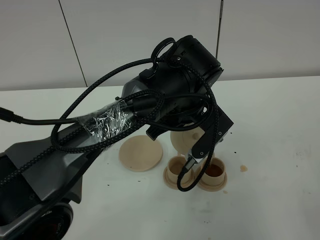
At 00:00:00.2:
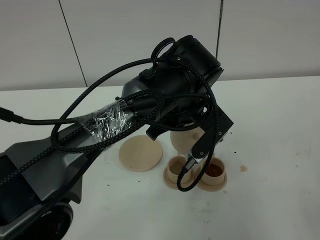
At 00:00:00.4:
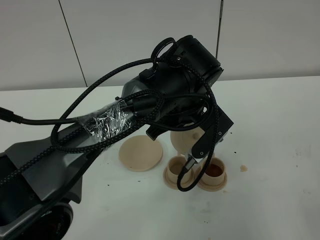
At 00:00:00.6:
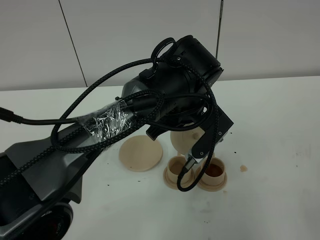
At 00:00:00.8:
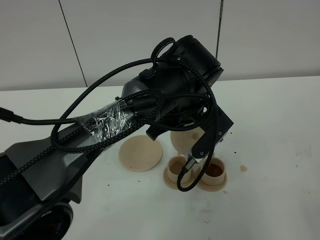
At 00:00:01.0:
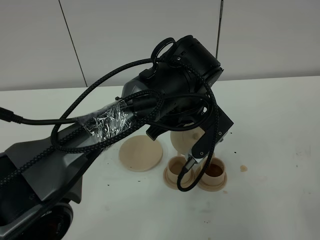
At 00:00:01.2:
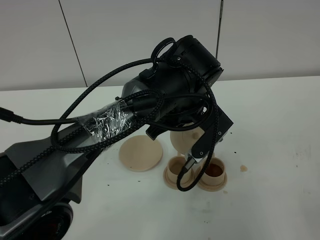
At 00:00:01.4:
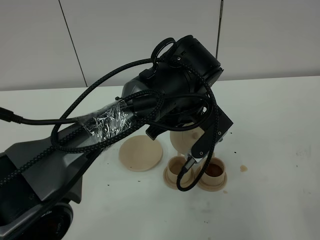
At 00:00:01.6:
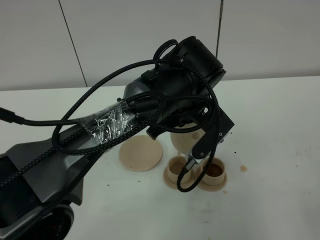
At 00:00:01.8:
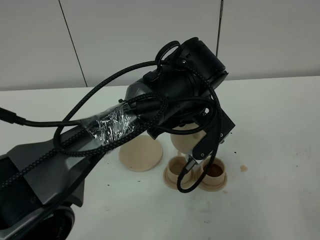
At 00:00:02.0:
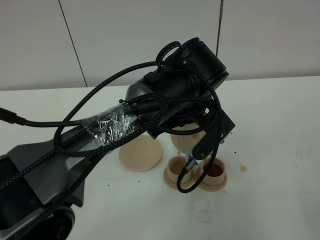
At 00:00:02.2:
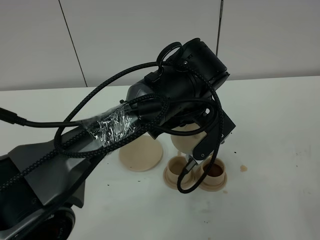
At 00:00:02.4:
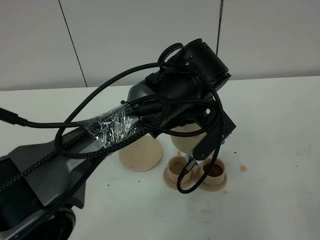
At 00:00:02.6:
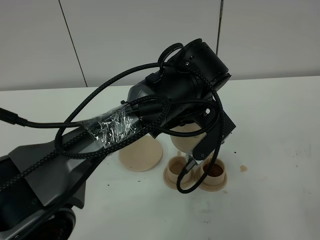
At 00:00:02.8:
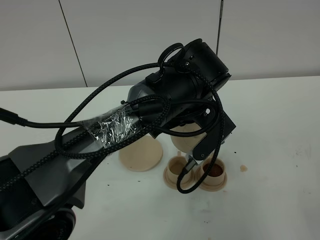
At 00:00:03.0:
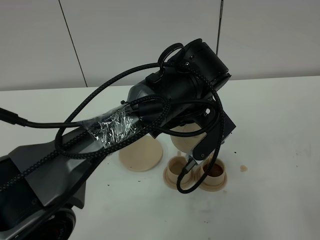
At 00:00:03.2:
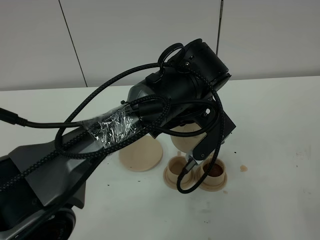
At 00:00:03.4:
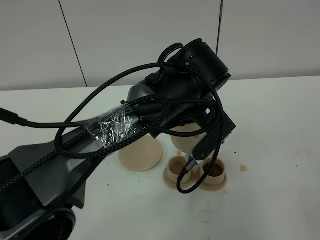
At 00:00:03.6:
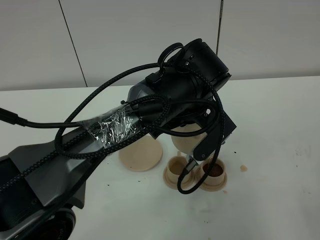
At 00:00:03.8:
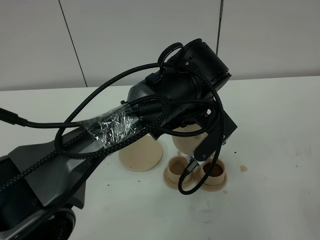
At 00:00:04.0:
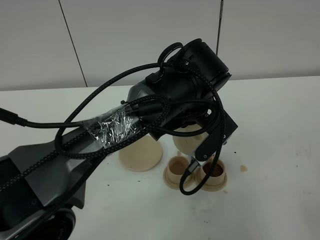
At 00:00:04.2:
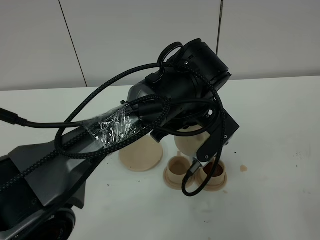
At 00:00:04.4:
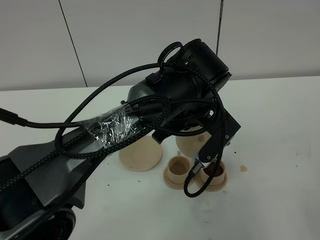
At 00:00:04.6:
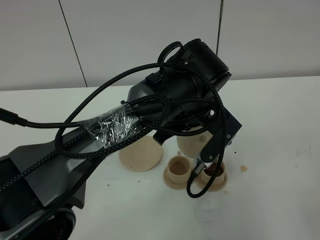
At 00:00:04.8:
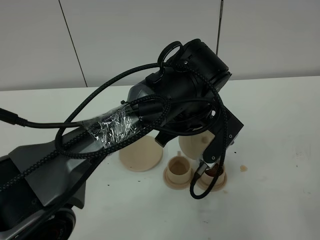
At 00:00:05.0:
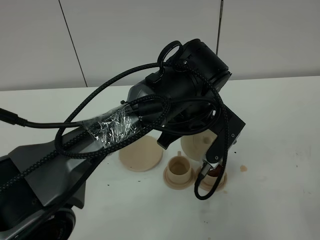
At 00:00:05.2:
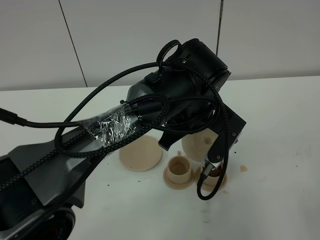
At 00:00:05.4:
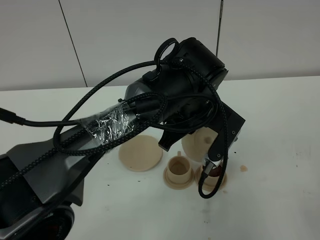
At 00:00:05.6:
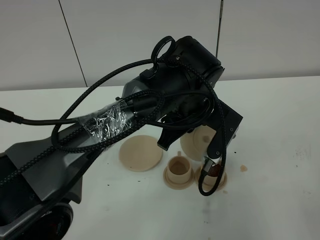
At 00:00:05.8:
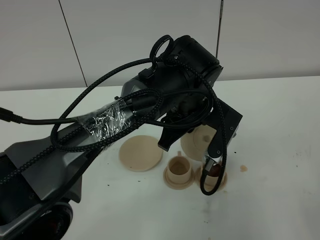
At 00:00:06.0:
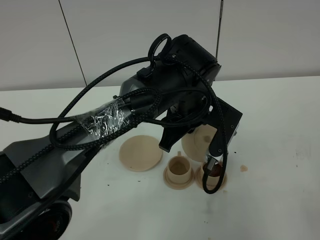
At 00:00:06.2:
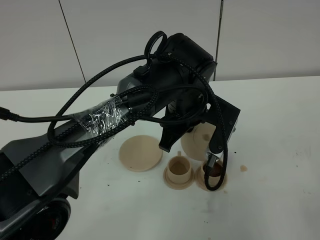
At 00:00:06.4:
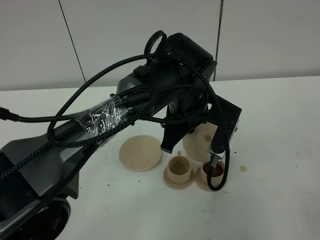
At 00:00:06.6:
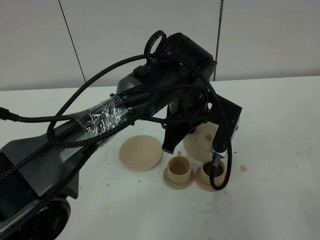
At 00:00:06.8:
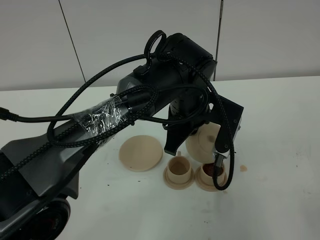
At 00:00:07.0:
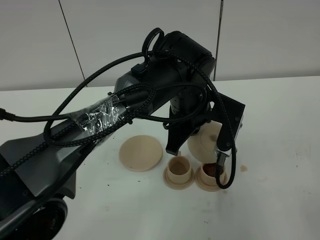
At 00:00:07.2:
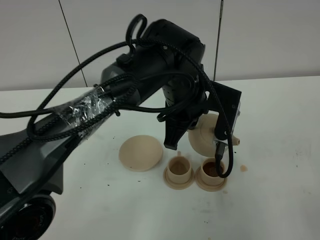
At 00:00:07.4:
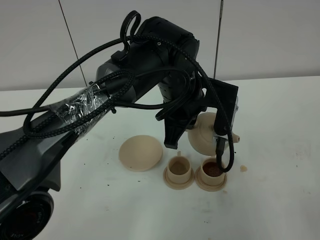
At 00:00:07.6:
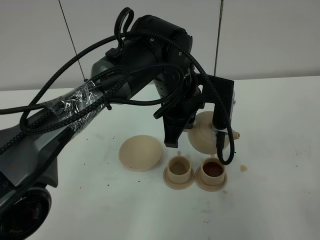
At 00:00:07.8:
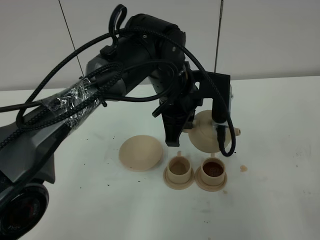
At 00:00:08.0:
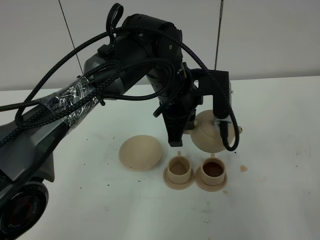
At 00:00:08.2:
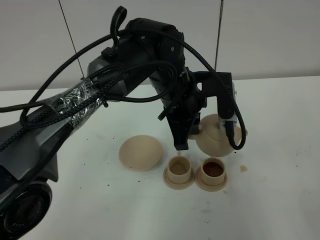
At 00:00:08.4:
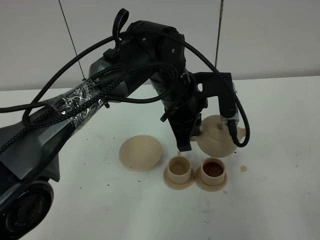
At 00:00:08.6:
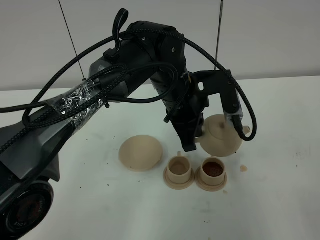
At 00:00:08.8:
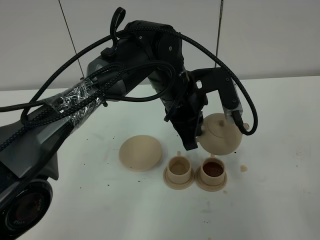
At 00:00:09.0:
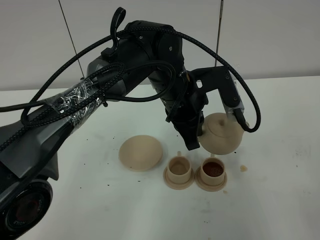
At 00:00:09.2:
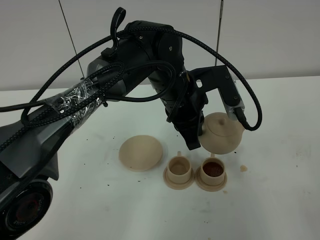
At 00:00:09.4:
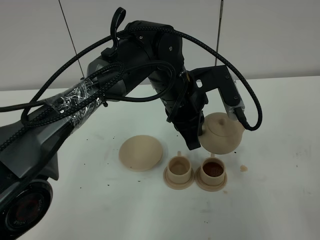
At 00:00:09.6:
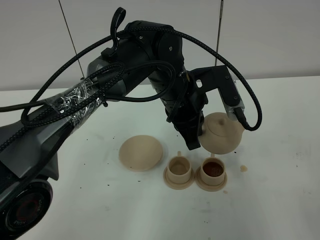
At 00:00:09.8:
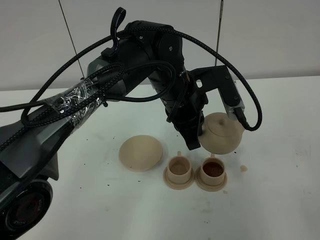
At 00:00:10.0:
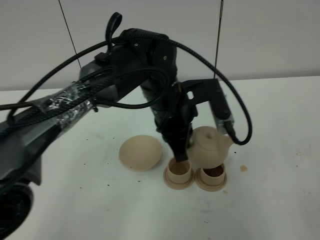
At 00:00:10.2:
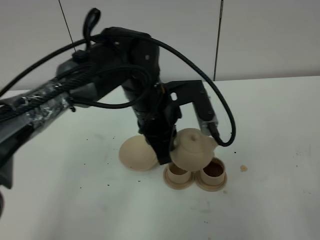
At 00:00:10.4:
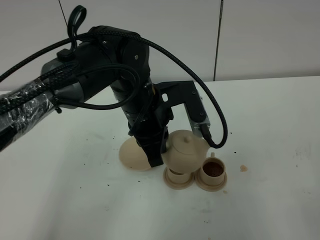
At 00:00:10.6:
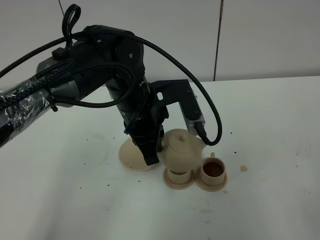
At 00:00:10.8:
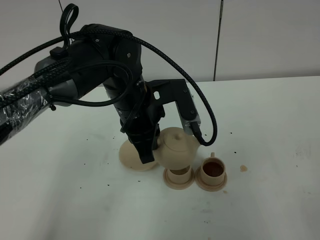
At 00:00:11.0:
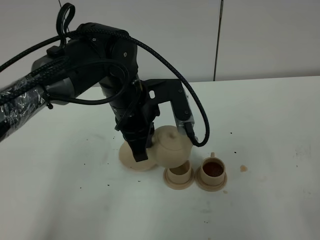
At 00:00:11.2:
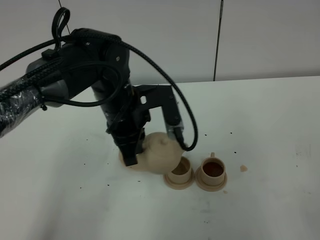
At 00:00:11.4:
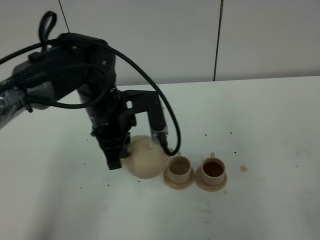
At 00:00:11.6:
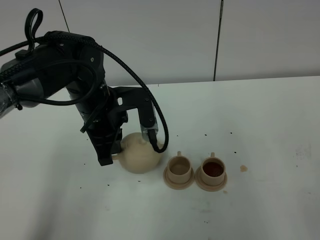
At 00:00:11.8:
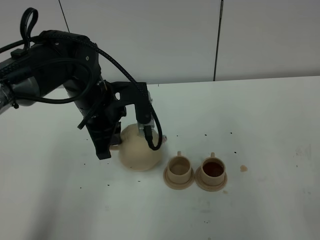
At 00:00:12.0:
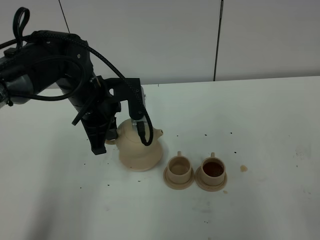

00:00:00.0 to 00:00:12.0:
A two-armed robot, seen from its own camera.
Task of the whole recording: grasp the brown teapot and pour the tea into the two brown teacups one by one, put the brown teapot back in its original place.
00:00:00.0 to 00:00:04.4: Both grippers stay put.
00:00:04.4 to 00:00:06.0: The grippers make only small movements.
00:00:09.0 to 00:00:10.4: The left gripper travels to the left by some 5 cm.
00:00:10.4 to 00:00:12.0: The left gripper shifts some 10 cm to the left.

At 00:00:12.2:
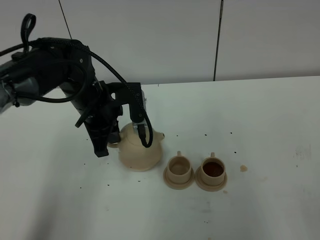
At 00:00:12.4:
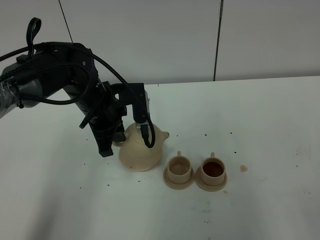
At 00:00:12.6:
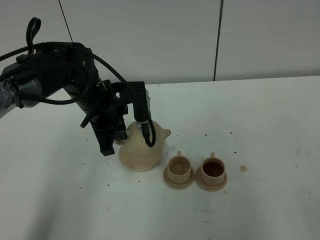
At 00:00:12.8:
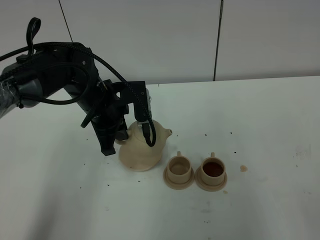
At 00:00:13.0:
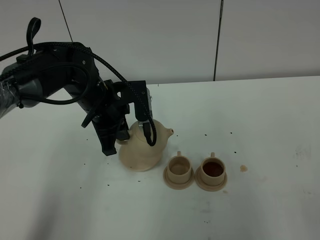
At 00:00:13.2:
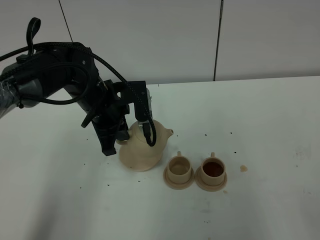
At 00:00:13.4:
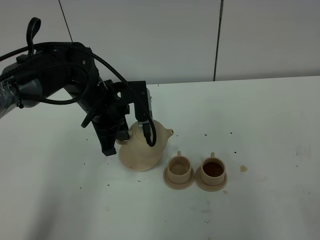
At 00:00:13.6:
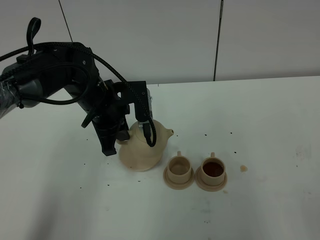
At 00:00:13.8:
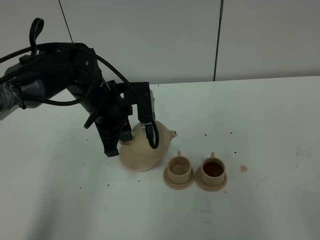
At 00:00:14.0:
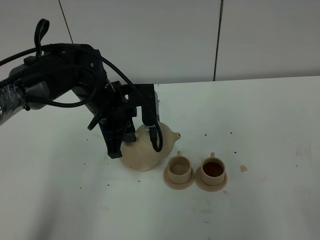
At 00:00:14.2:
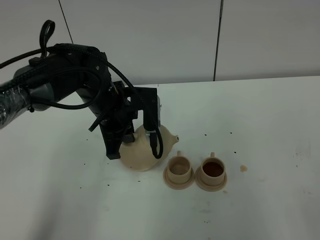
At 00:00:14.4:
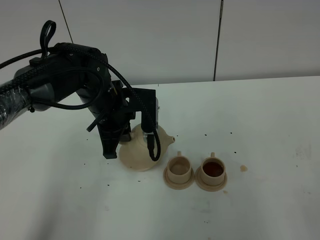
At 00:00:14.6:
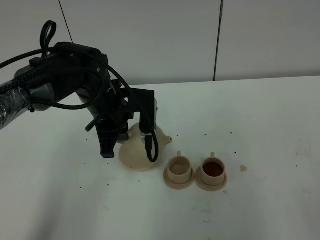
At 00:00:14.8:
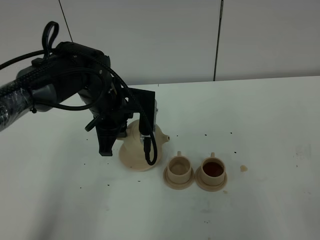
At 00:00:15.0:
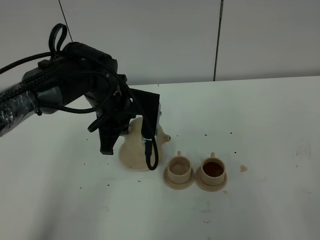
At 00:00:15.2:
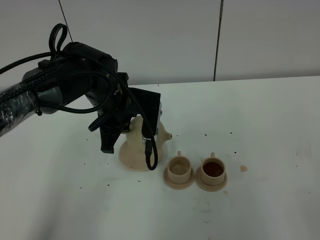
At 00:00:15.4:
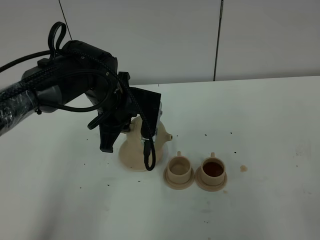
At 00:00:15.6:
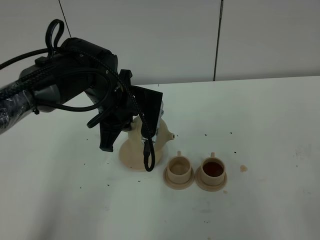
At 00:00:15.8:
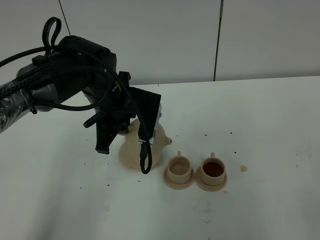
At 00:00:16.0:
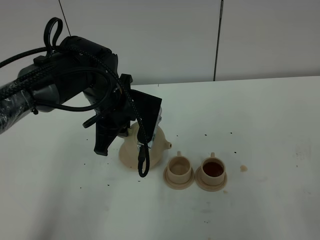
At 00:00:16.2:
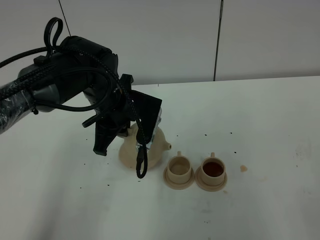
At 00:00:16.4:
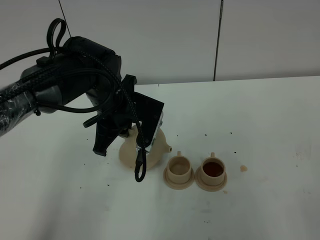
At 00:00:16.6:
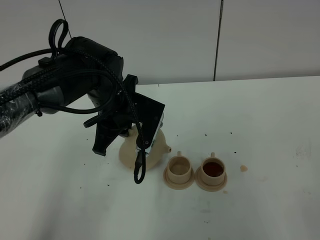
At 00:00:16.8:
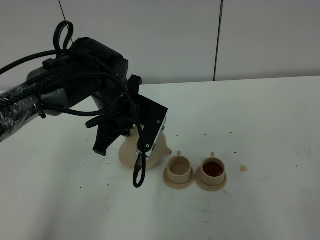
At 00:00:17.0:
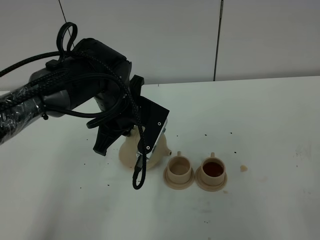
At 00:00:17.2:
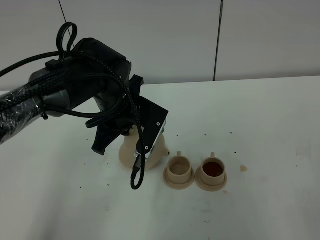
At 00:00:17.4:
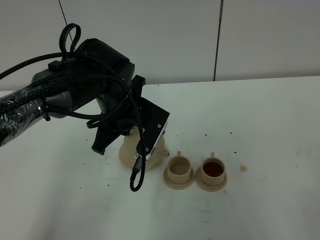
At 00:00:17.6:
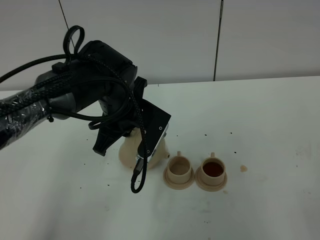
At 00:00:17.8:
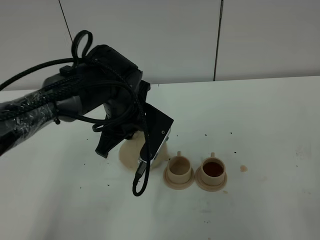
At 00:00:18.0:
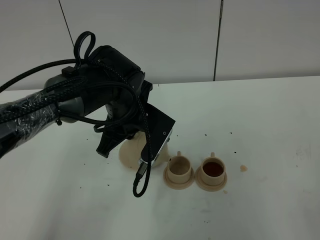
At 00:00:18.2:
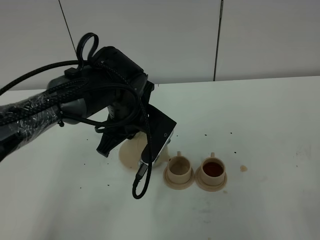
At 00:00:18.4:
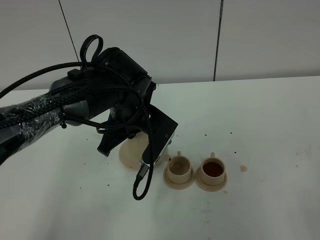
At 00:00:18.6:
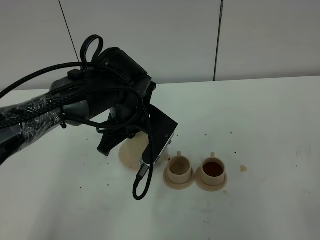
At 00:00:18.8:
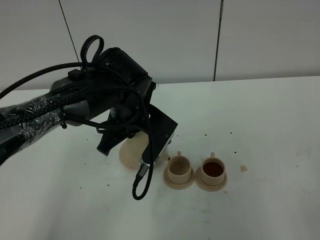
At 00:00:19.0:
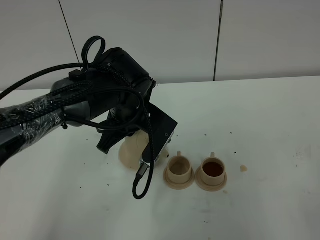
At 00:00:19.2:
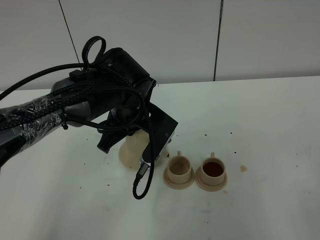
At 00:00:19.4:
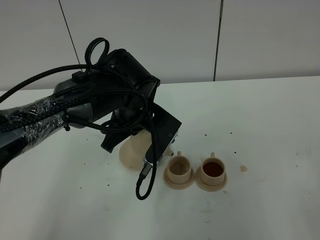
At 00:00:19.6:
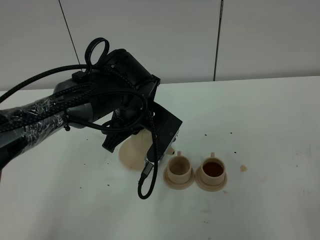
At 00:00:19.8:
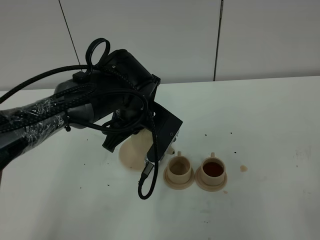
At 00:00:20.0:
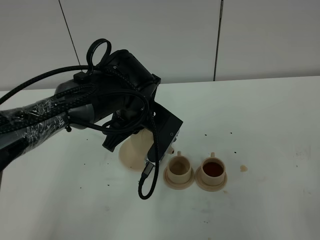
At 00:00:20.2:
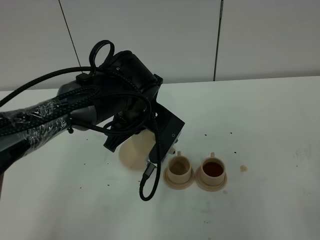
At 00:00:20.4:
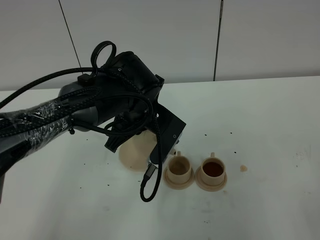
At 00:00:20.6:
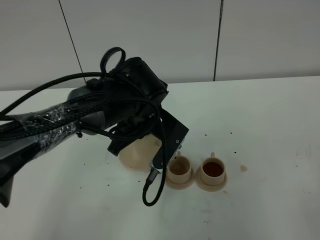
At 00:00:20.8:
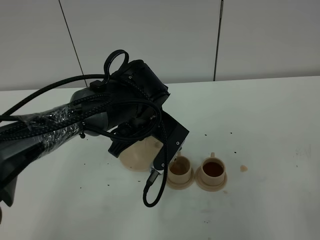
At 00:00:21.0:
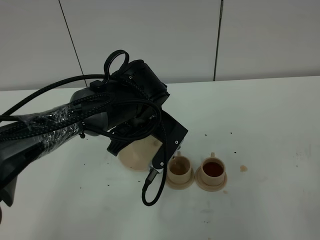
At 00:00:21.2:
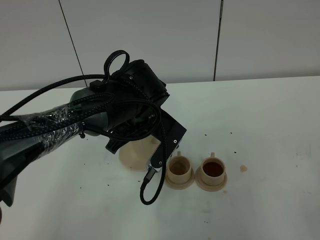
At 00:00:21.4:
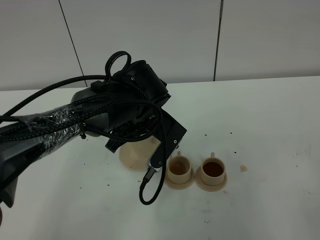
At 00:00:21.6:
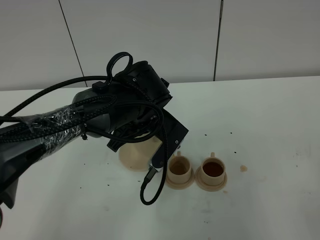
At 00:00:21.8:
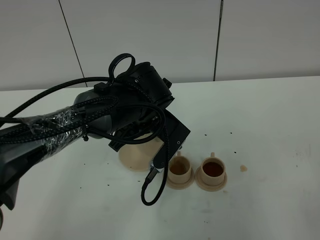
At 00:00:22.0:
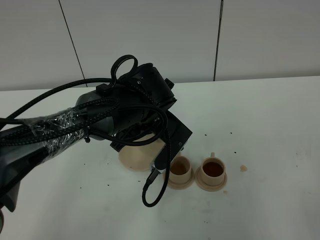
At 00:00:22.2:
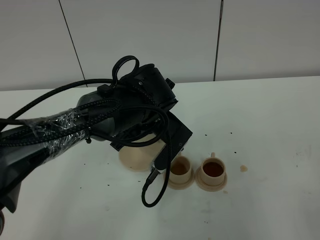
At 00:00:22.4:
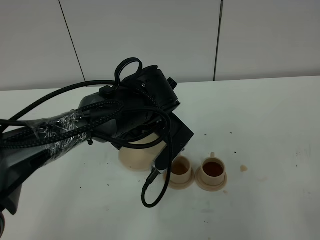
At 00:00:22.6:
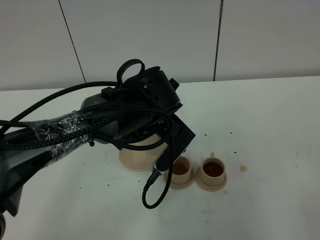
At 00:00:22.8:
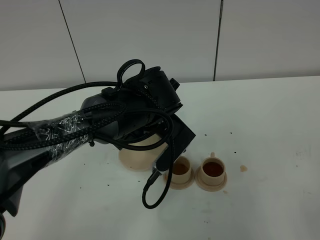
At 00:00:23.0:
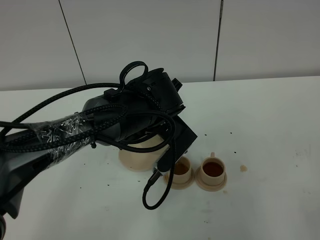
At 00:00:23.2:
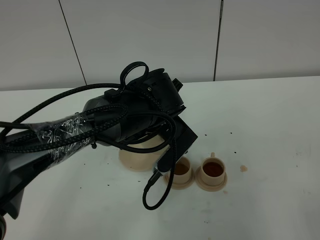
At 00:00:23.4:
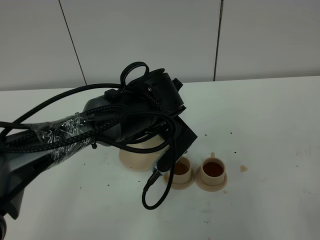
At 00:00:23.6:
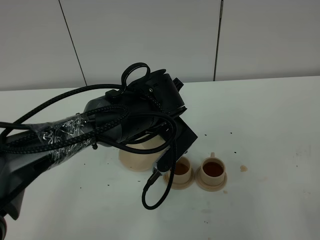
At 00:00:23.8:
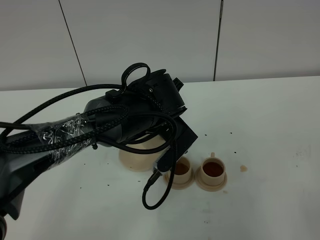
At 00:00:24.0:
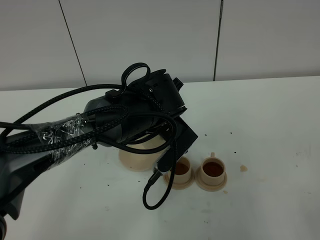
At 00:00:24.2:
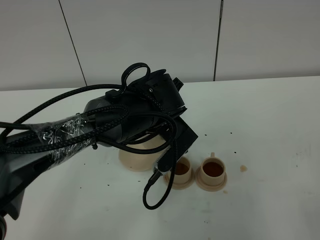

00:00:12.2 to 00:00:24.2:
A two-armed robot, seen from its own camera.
Task of the whole recording: grasp the brown teapot and pour the tea into the two brown teacups one by one, put the brown teapot back in its original place.
00:00:12.2 to 00:00:13.8: The grippers make only small movements.
00:00:15.2 to 00:00:16.6: The grippers stay close to where they were, moving slightly.
00:00:16.6 to 00:00:19.8: The grippers move only a little.
00:00:19.8 to 00:00:22.6: The grippers stay close to where they were, moving slightly.
00:00:22.6 to 00:00:24.2: Both grippers stay about where they are.
